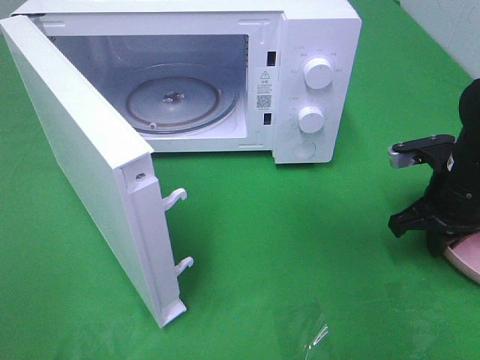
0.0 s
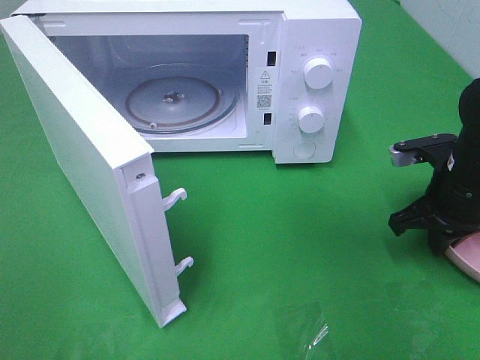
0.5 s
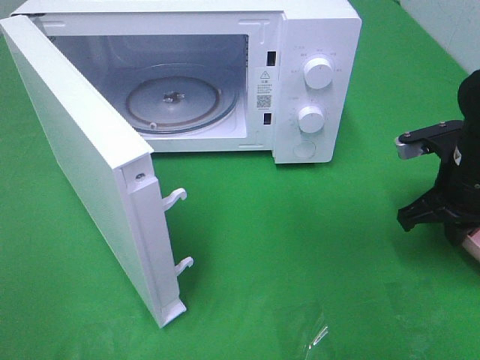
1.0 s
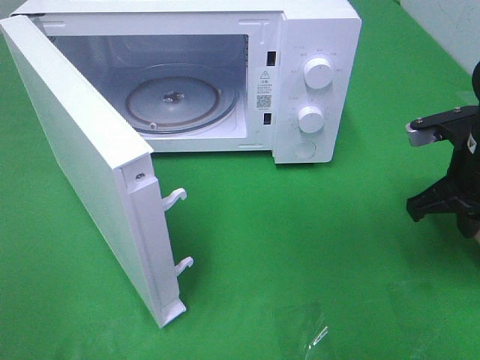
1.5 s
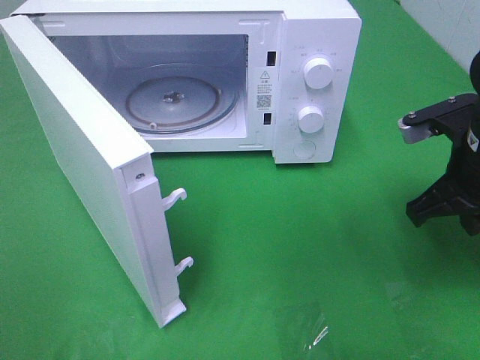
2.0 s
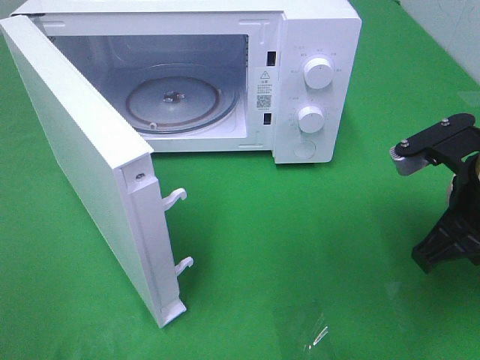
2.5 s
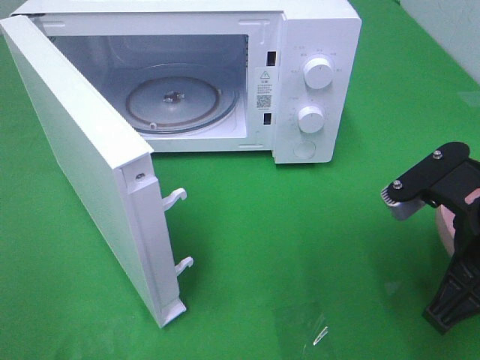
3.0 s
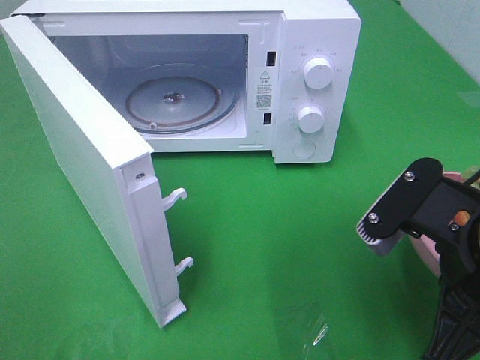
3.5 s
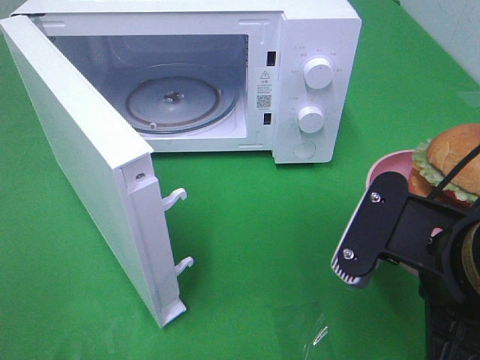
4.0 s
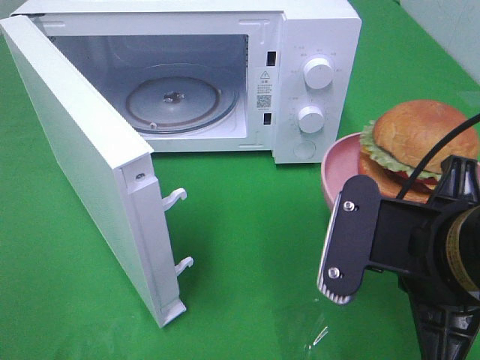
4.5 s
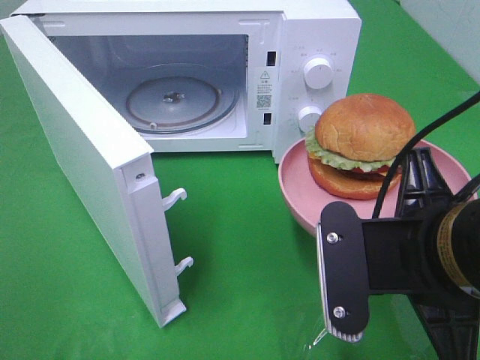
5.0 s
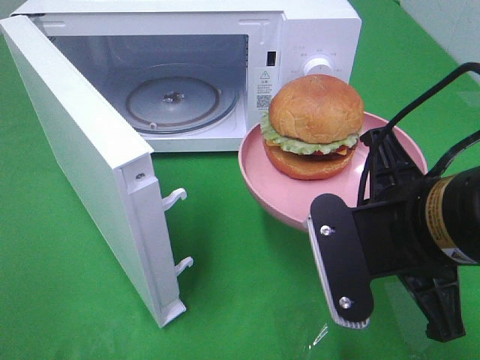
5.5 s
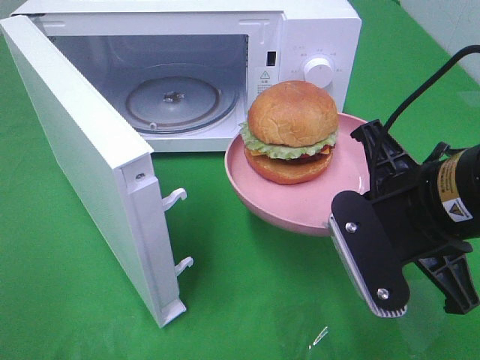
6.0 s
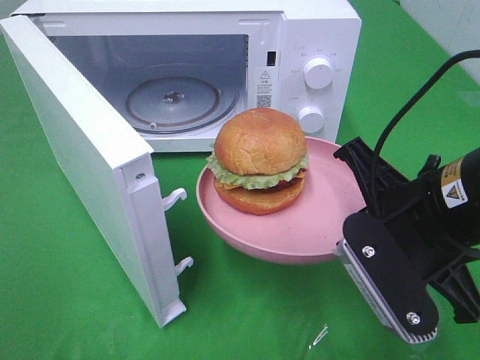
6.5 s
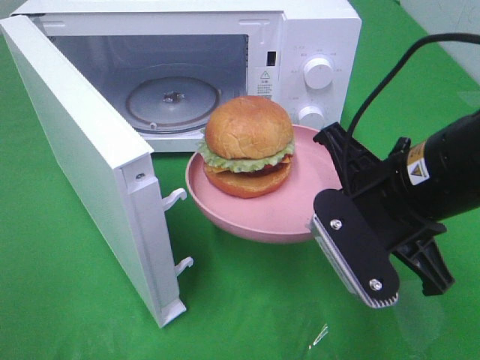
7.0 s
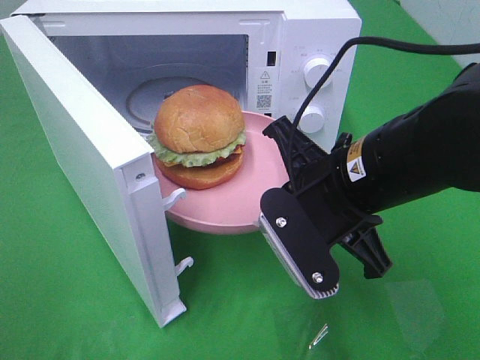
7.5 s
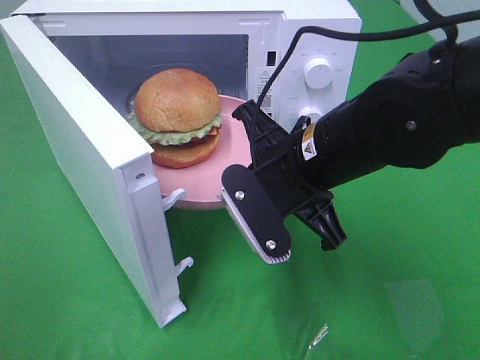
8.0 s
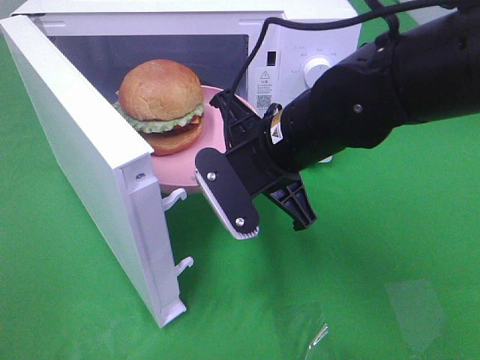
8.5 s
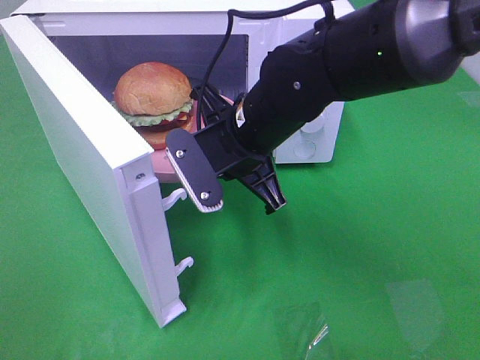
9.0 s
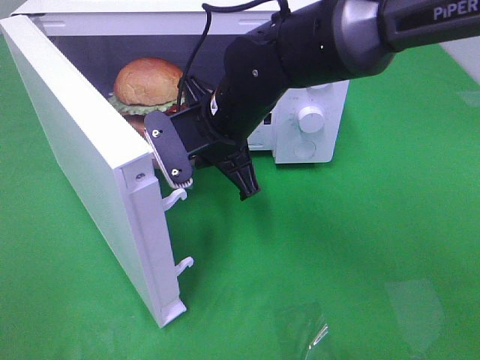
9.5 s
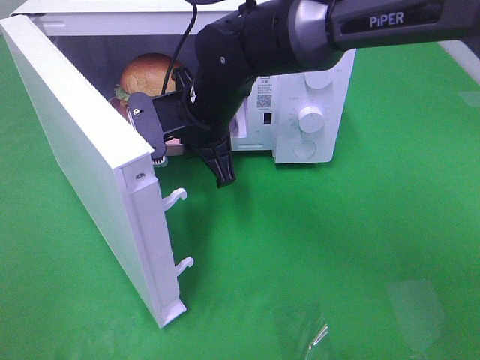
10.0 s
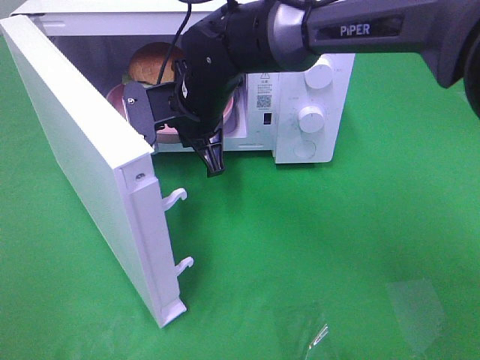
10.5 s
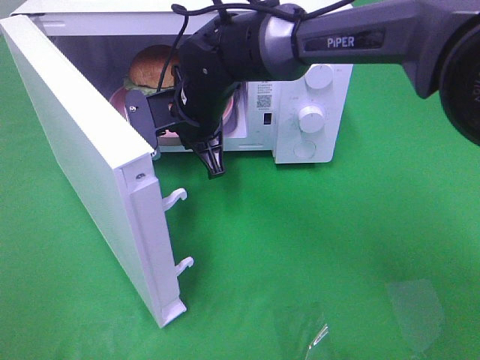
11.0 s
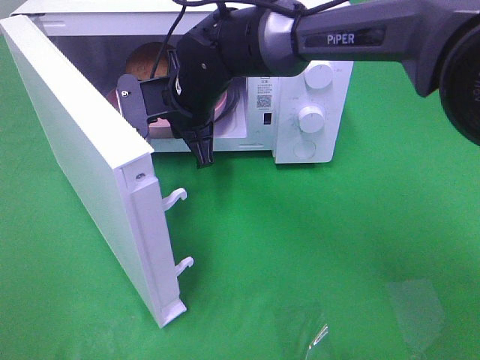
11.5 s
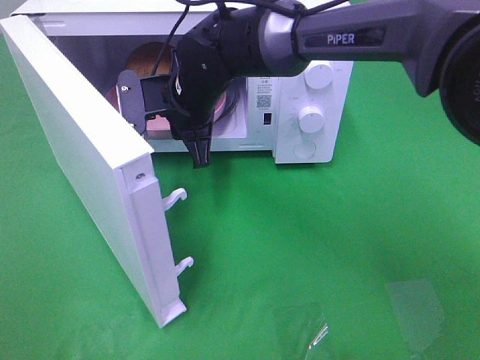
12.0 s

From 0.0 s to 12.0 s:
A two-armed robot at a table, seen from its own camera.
Task of the whole recording: Heat the burger.
Step, from 1.0 s to 11.5 s: Right hand: place the plate in the microwave.
From 0.0 s to 2.0 s: The right gripper shifts about 5 cm upward.
From 2.0 s to 4.0 s: The right gripper heads backward and to the left, covering about 15 cm.
From 4.0 s to 6.0 s: The right gripper is displaced forward by about 5 cm.
From 6.0 s to 8.0 s: The right gripper goes approximately 10 cm to the left and forward.
From 8.0 s to 10.0 s: The right gripper moves forward and to the left, some 15 cm.
From 10.0 s to 12.0 s: There are only small adjustments of the grippers.

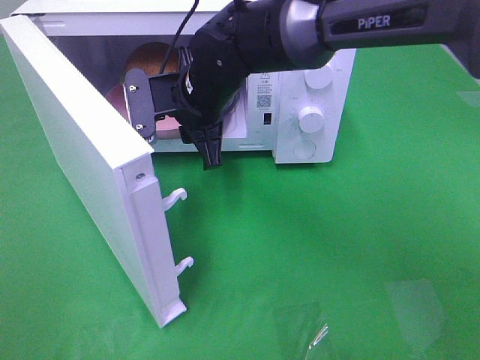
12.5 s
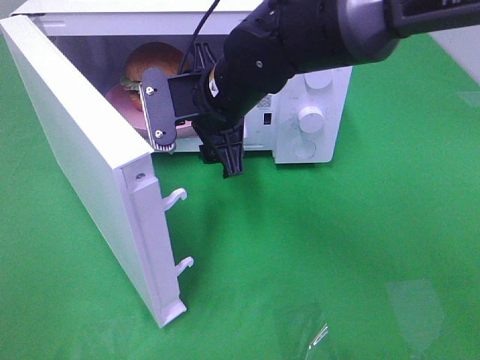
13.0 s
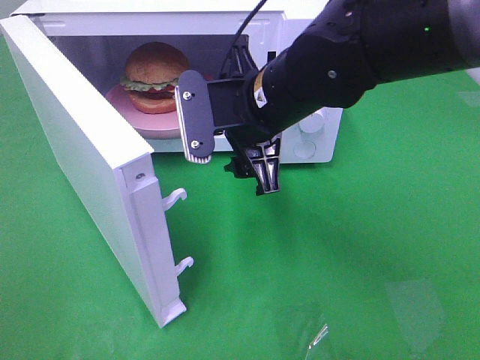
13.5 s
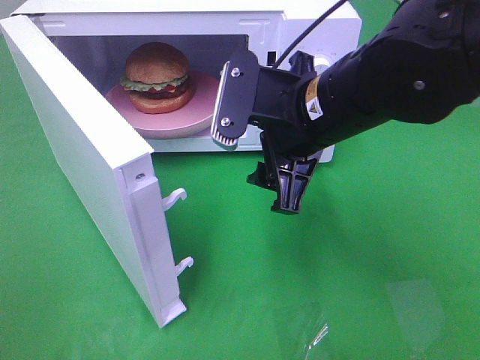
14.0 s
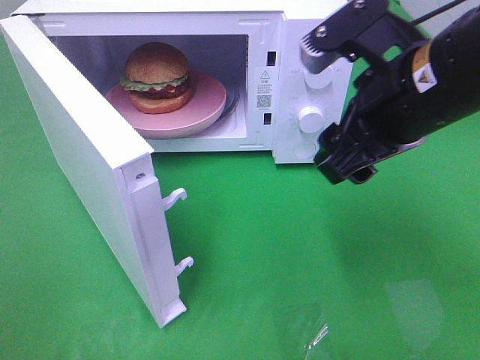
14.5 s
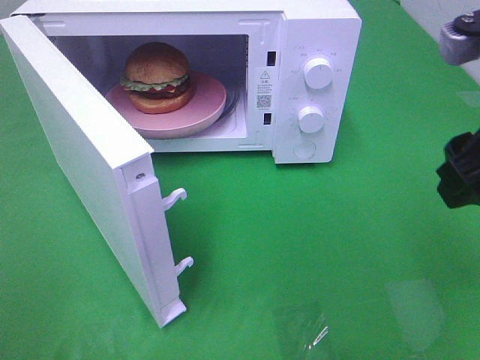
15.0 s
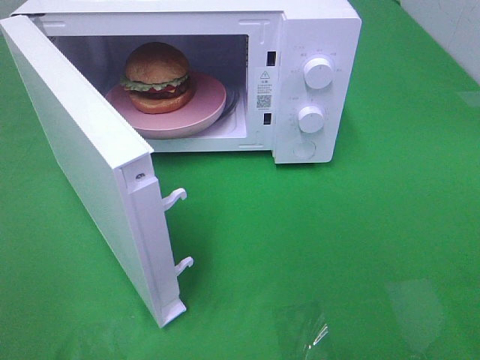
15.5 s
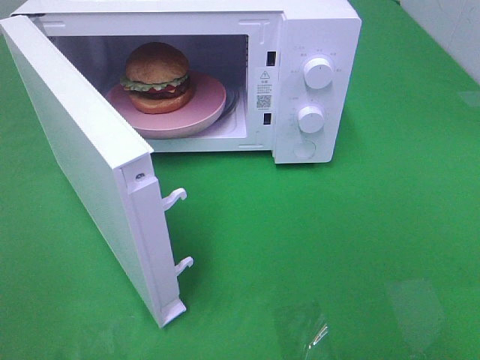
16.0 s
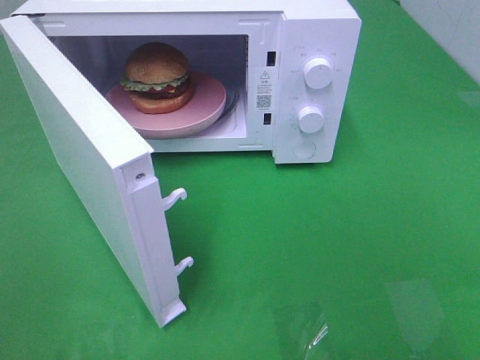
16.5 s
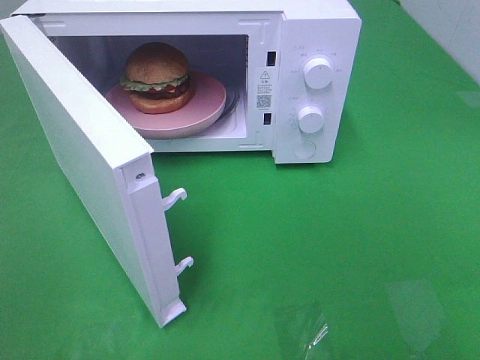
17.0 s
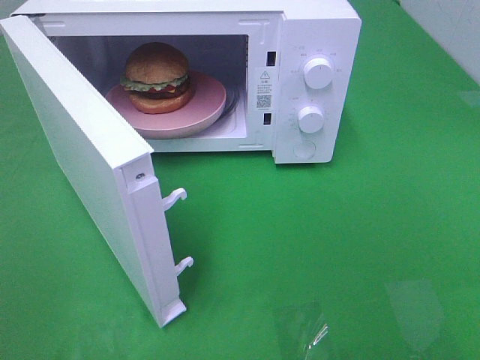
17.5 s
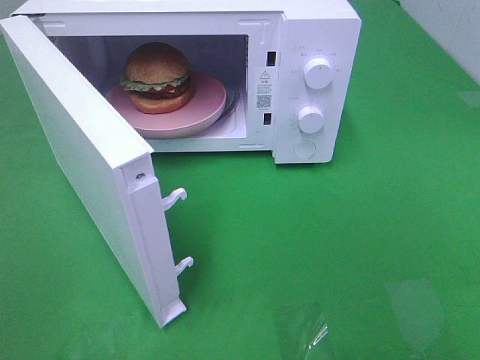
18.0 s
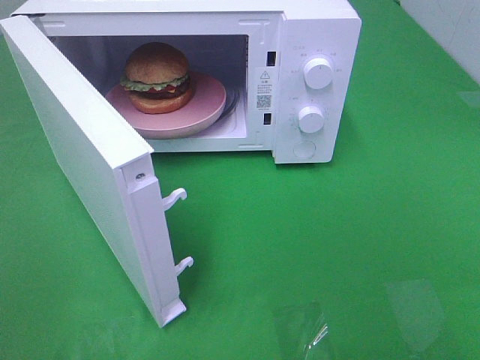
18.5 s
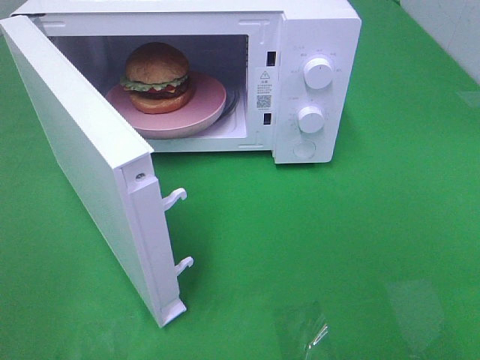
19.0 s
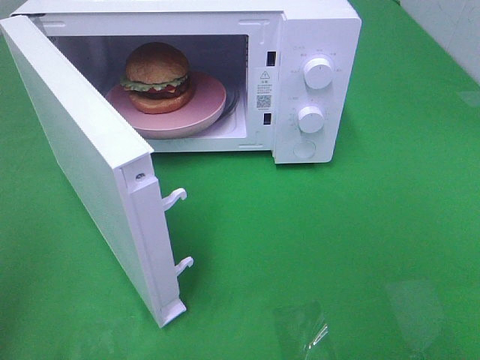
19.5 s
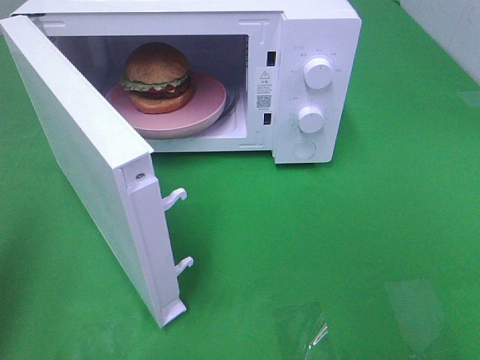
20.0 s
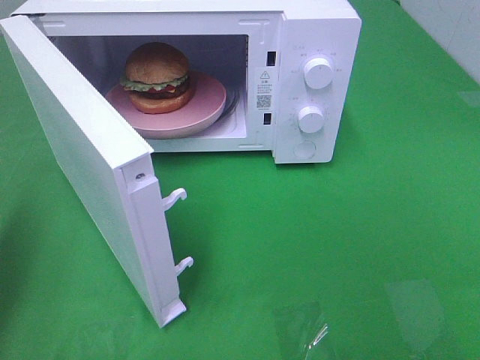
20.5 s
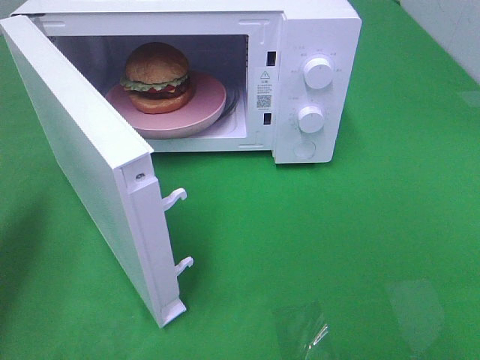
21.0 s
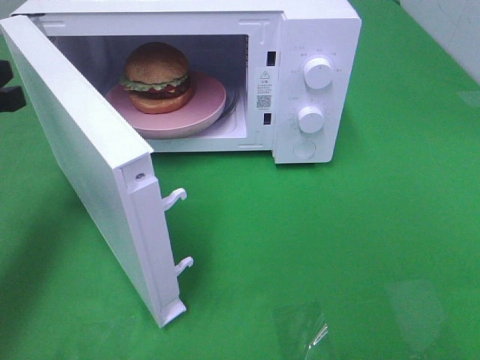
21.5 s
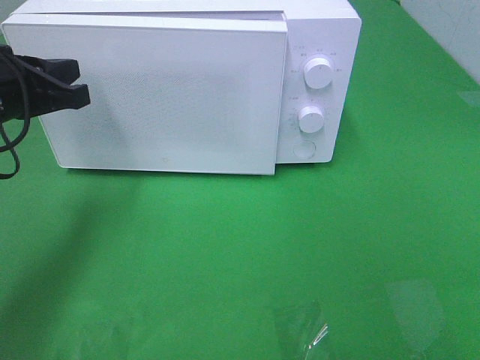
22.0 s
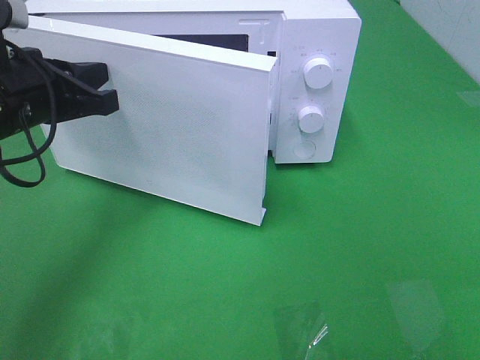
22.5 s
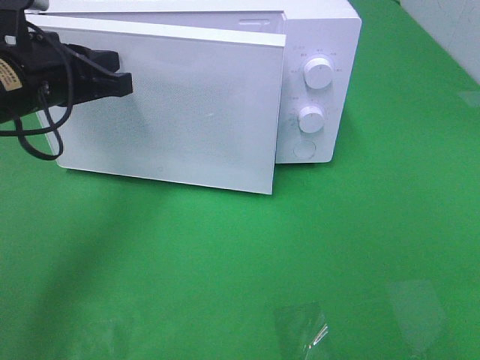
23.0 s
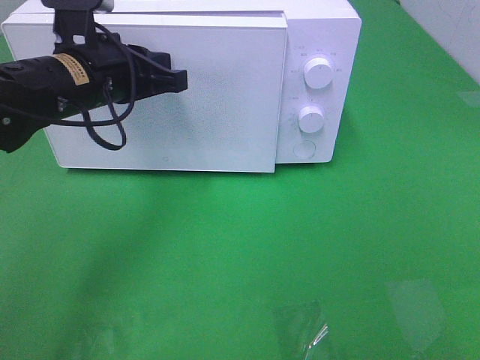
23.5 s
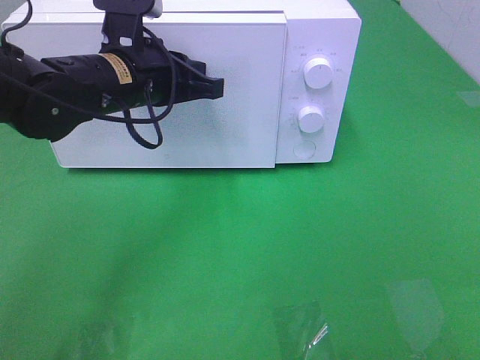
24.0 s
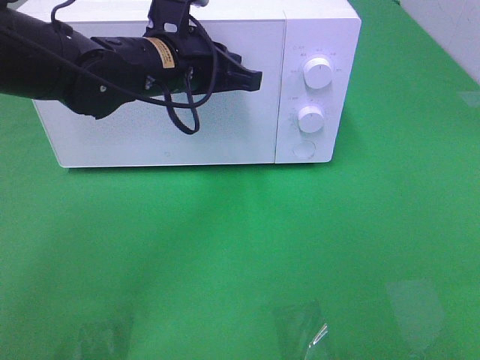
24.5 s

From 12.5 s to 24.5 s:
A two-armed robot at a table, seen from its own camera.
Task of the whole recording: Heat the burger.
From 12.5 s to 14.5 s: The right gripper shifts about 25 cm to the right, backward and upward.
From 14.5 s to 16.5 s: The right gripper shifts some 25 cm backward and to the right.
From 18.5 s to 20.5 s: The left gripper shifts approximately 20 cm forward, and closes up.
From 20.5 s to 22.5 s: The left gripper goes roughly 15 cm to the right and forward.
From 22.5 s to 24.5 s: The left gripper is displaced to the right and forward by approximately 15 cm.

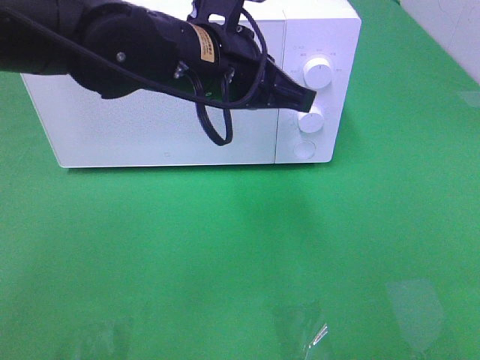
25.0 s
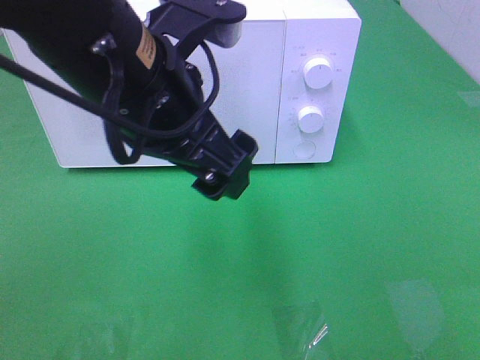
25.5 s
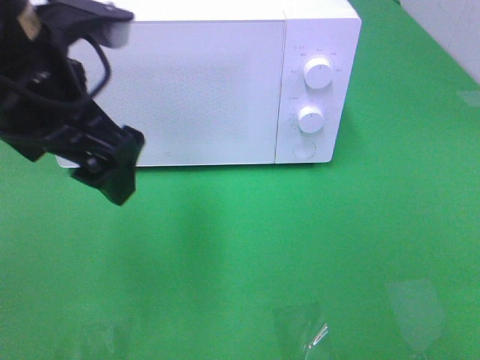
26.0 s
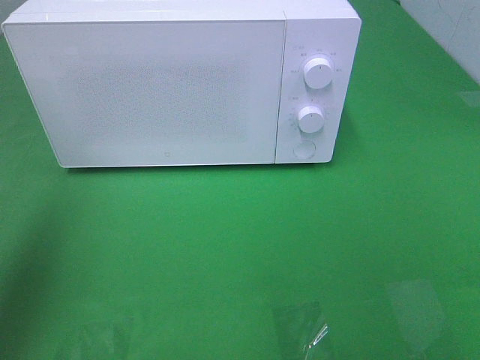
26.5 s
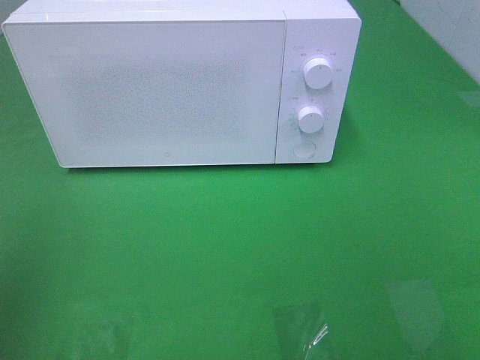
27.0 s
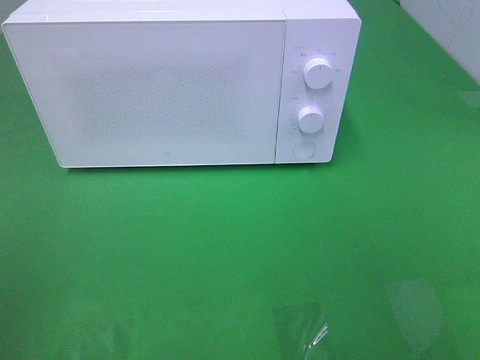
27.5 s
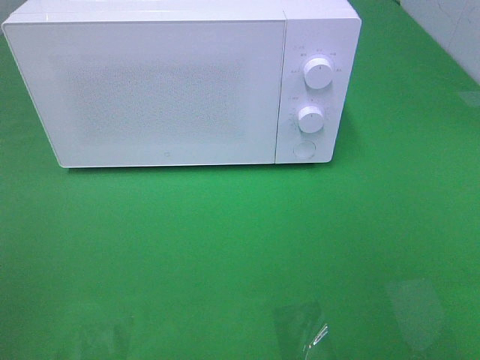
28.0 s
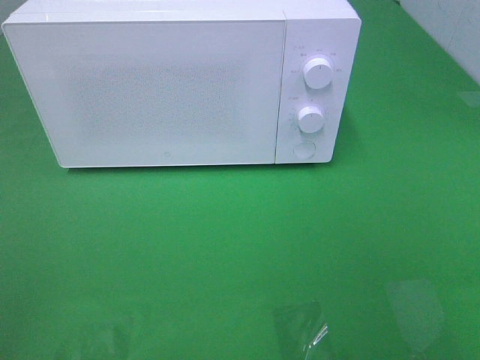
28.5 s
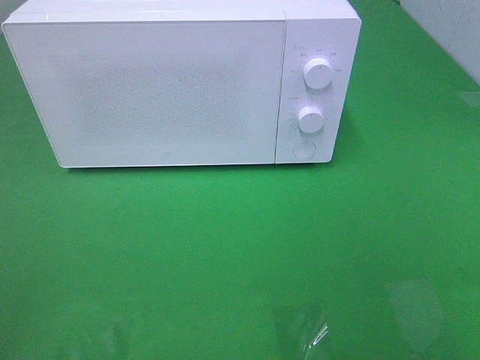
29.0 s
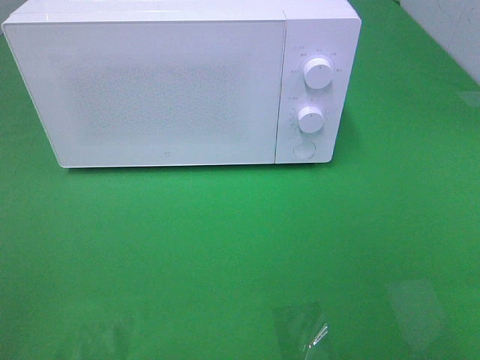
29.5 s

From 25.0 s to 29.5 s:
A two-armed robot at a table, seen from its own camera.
Task of the whole recording: Heat the burger.
From 25.0 s to 27.0 s: The left gripper travels to the left and backward by some 35 cm, and opens up.
